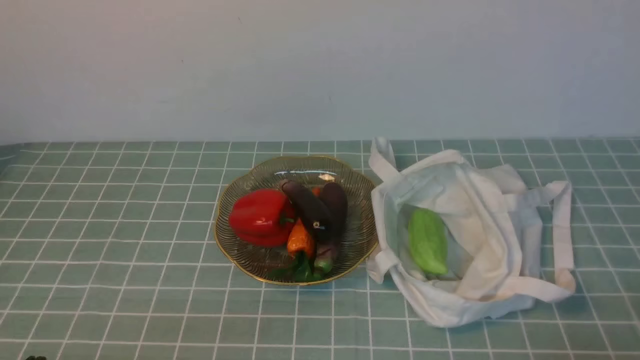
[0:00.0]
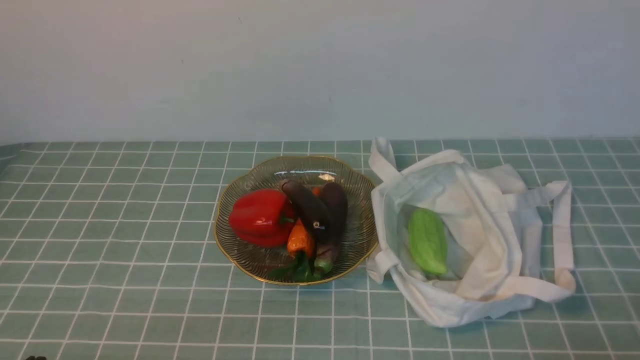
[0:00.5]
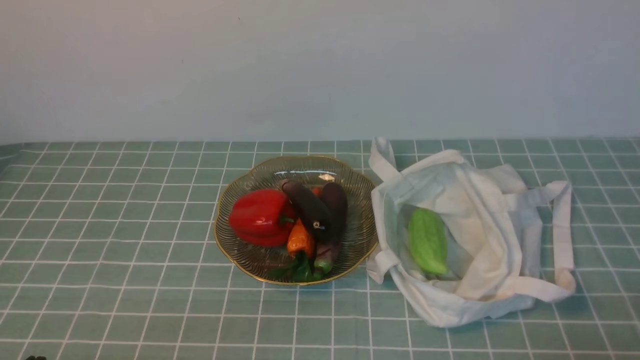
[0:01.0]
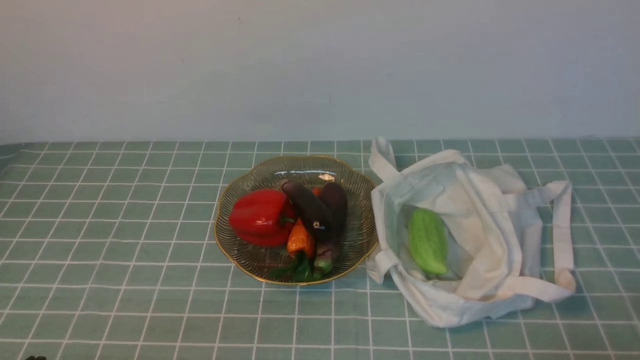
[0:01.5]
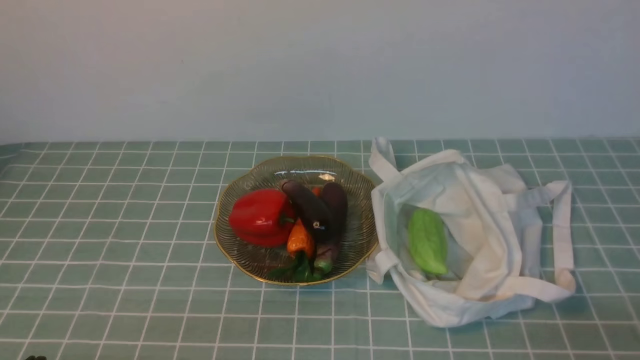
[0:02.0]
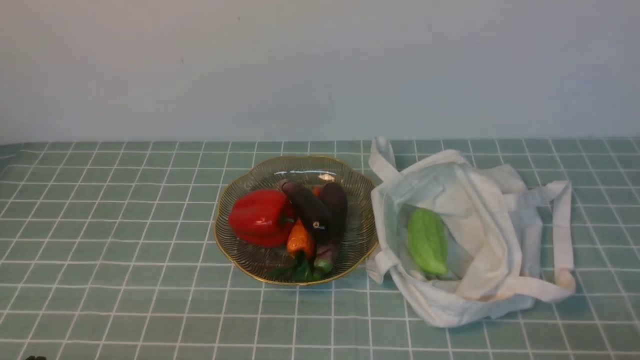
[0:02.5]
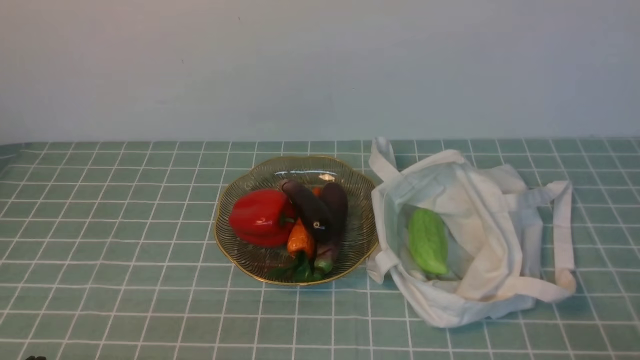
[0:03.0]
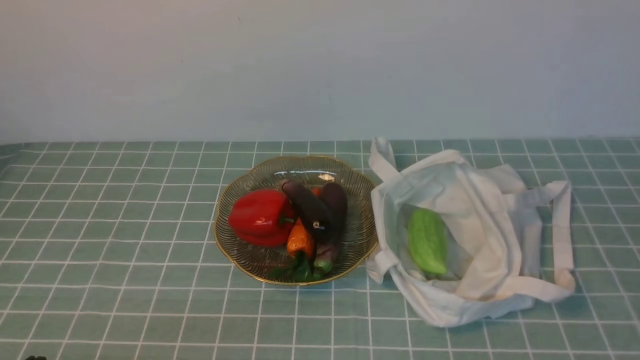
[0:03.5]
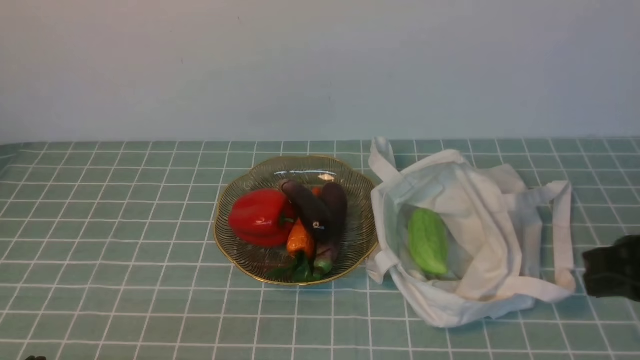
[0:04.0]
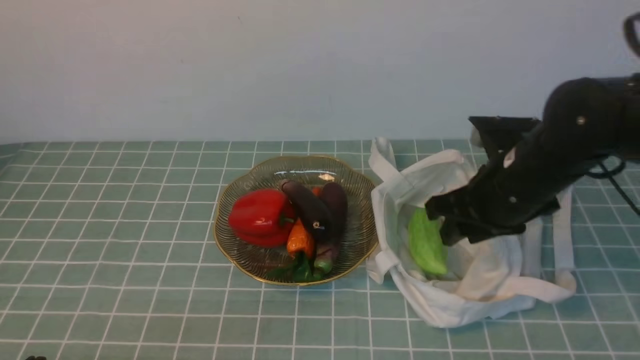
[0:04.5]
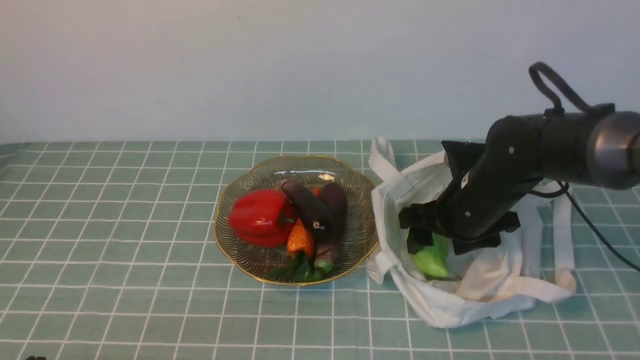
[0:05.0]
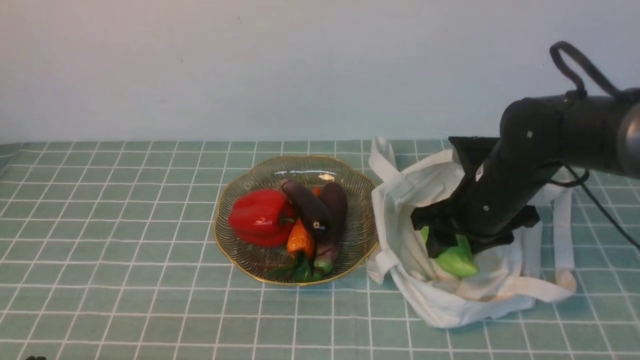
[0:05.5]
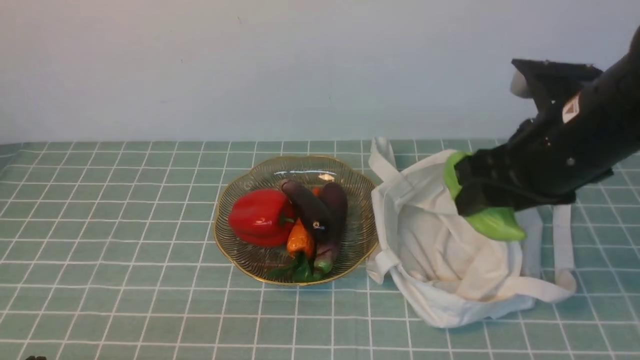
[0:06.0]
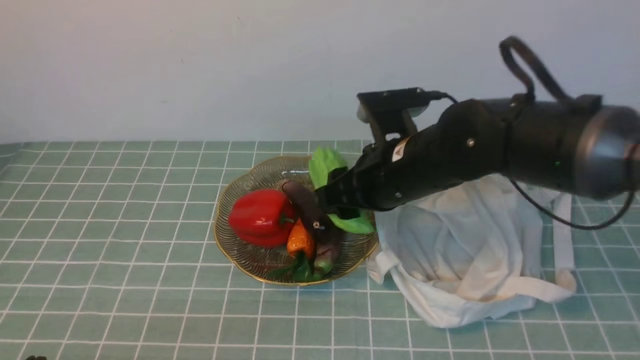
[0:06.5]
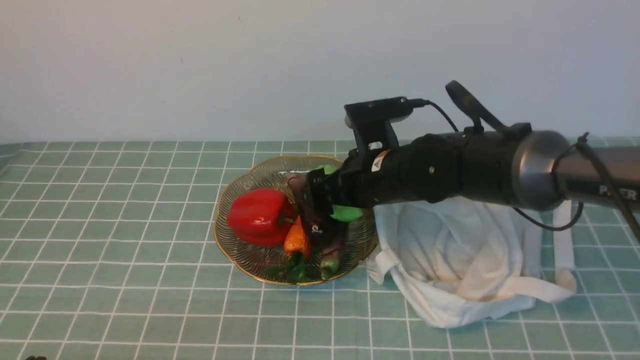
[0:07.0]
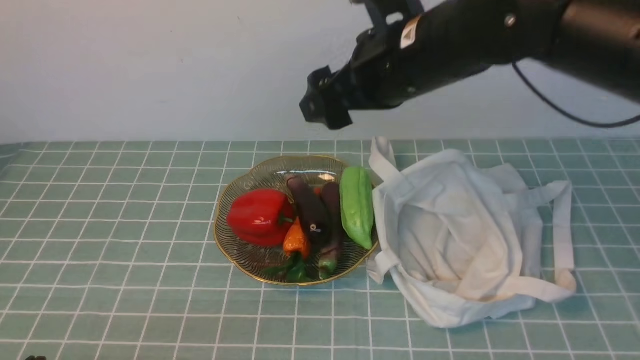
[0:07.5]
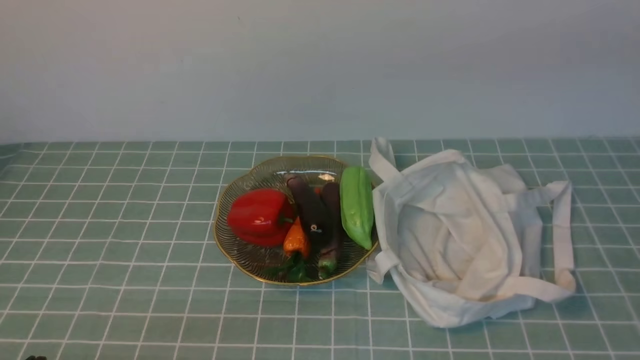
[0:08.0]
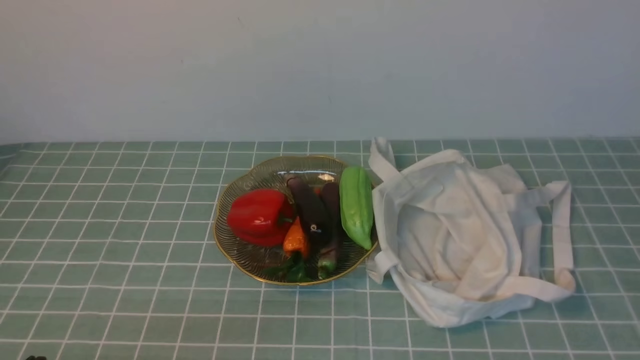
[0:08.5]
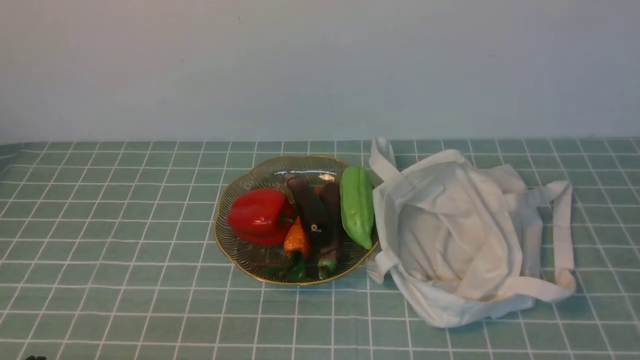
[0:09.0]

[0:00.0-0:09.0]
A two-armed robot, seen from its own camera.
Task of the whole recording: take vegetables from cloth bag on blue coffee tablecloth place on plate.
Step, 0:00.0 to 0:05.0: Grasp the bitter melon with right gripper.
Step, 0:05.5 to 0:07.0: Place the bitter melon on the plate with right gripper.
0:02.0 to 0:04.5: The right gripper heads forward and to the left, covering about 30 cm, and opens its fingers.
0:04.5 to 0:07.0: The right gripper swings up and down, about 15 cm each way, with 2 reversals, and opens.
0:07.0 to 0:09.0: The right gripper heads backward, to the right and upward, covering roughly 35 cm, and closes.

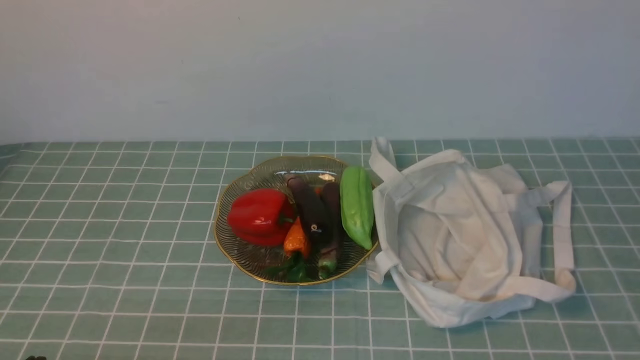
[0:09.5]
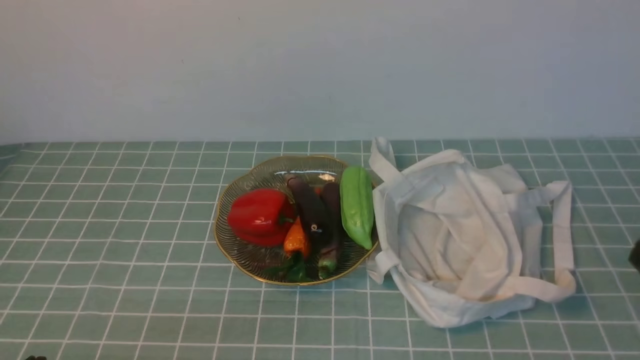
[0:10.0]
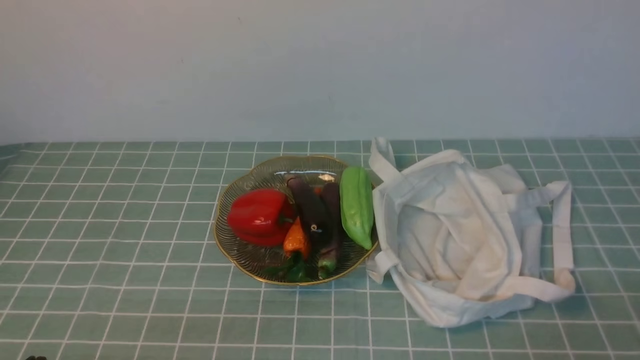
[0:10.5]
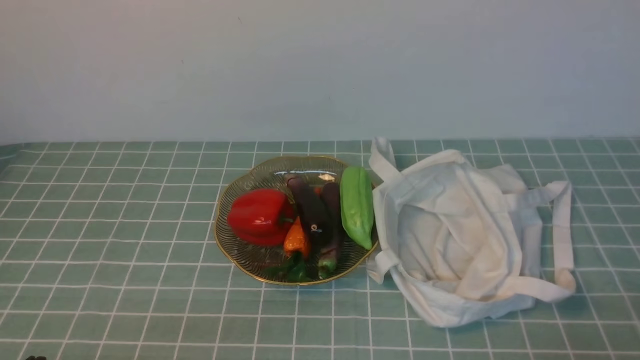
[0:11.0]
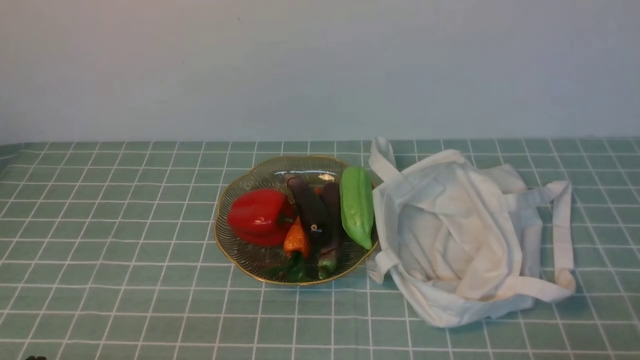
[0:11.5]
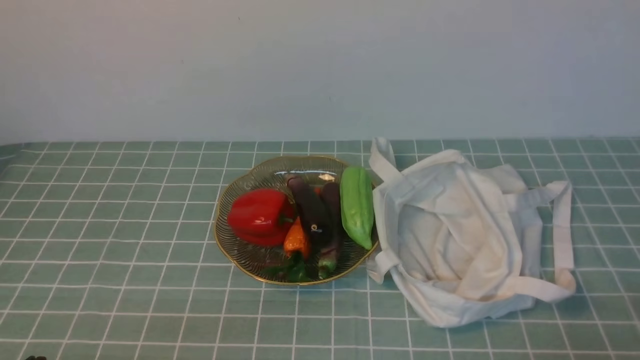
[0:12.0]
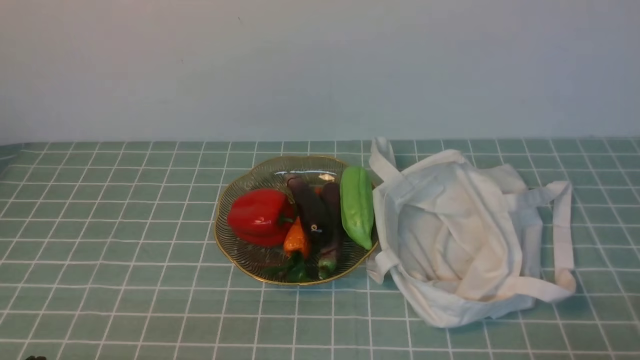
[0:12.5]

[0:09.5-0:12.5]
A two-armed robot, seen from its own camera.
Task of the whole recording: take vegetables from cloth bag on blue coffee tablecloth place on plate.
0:11.0 to 0:12.5: The two grippers keep their place.
